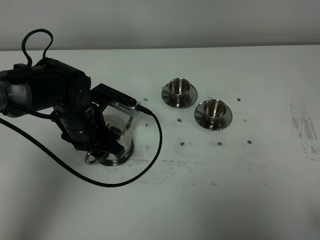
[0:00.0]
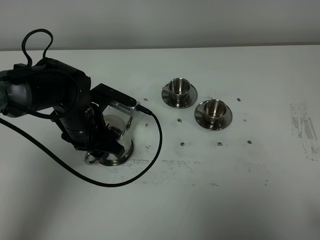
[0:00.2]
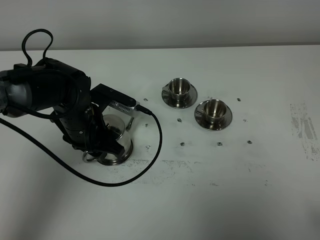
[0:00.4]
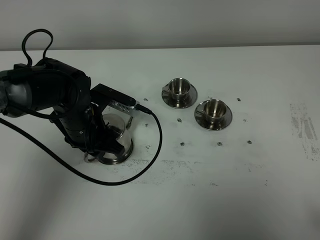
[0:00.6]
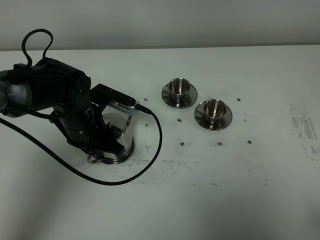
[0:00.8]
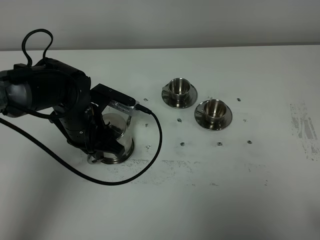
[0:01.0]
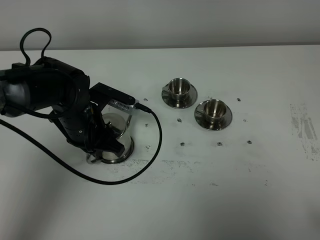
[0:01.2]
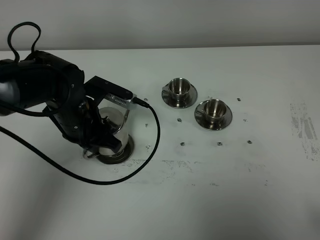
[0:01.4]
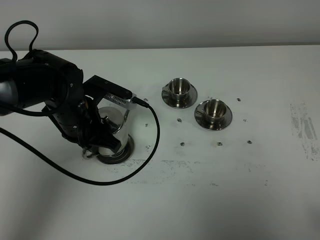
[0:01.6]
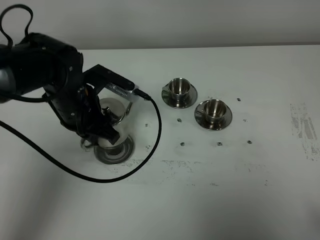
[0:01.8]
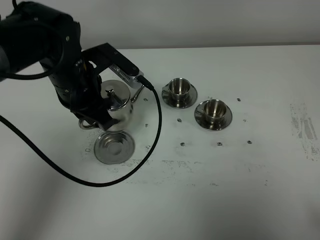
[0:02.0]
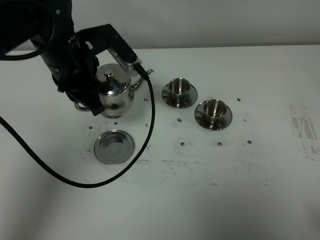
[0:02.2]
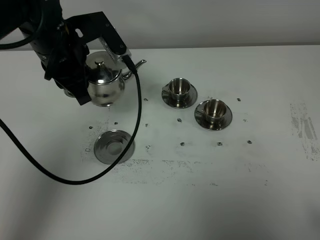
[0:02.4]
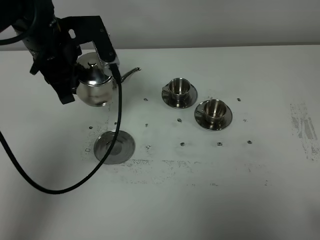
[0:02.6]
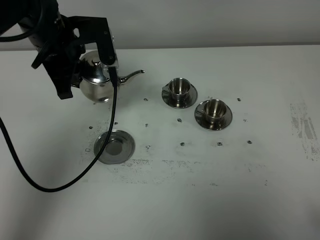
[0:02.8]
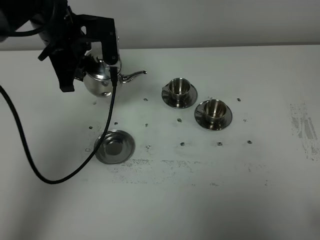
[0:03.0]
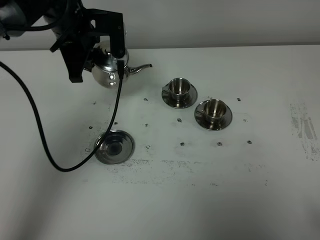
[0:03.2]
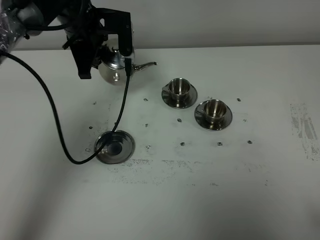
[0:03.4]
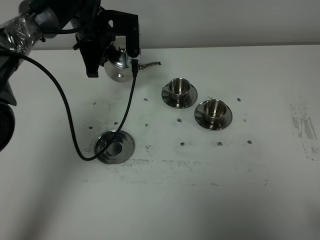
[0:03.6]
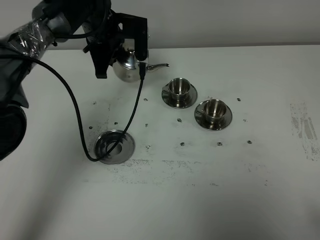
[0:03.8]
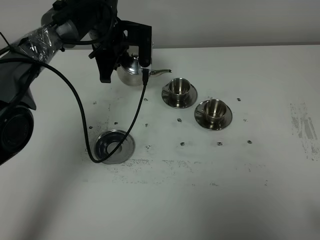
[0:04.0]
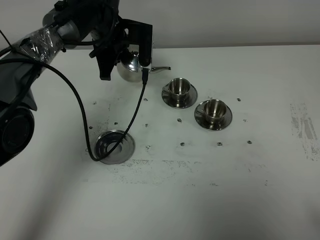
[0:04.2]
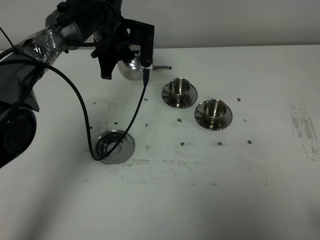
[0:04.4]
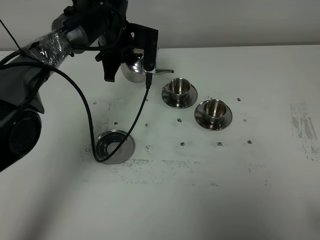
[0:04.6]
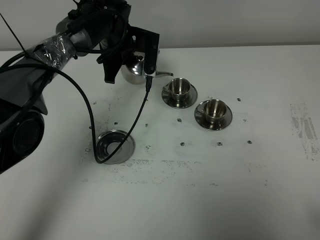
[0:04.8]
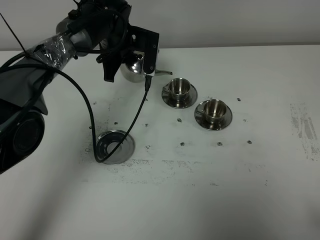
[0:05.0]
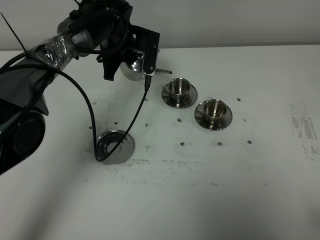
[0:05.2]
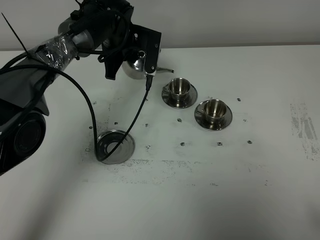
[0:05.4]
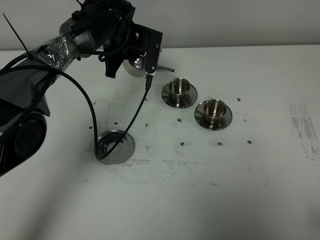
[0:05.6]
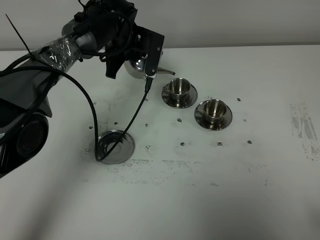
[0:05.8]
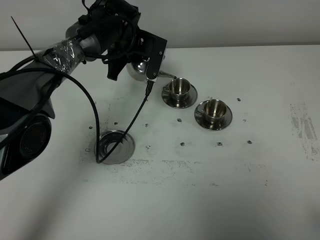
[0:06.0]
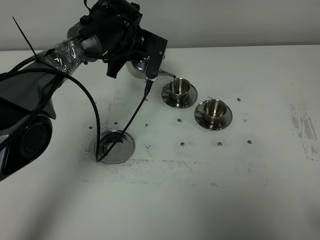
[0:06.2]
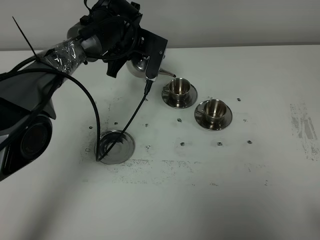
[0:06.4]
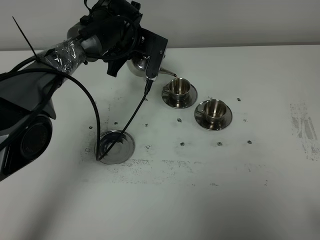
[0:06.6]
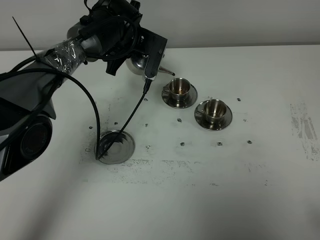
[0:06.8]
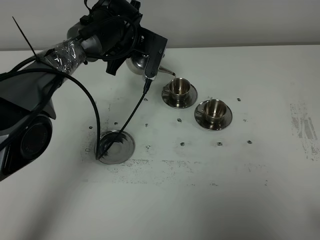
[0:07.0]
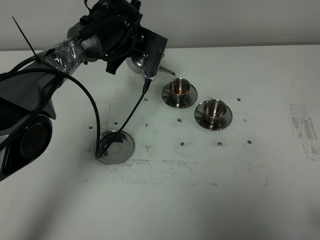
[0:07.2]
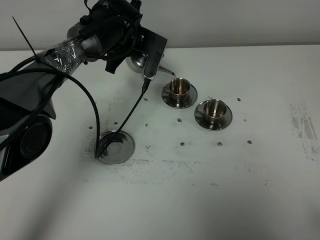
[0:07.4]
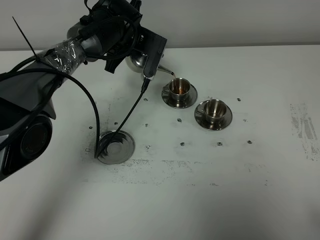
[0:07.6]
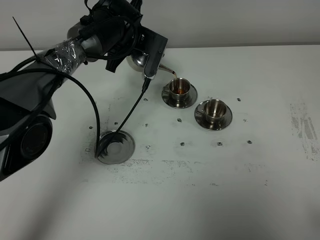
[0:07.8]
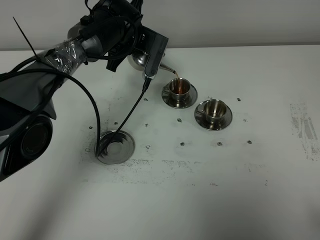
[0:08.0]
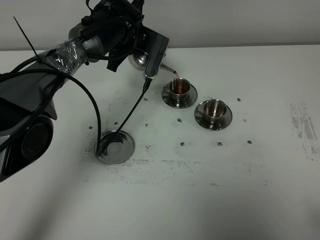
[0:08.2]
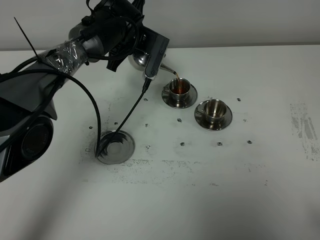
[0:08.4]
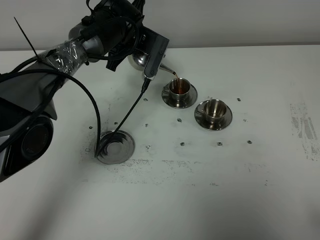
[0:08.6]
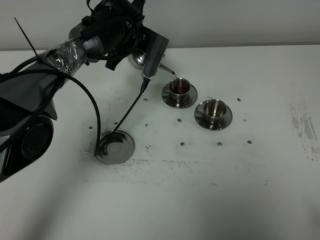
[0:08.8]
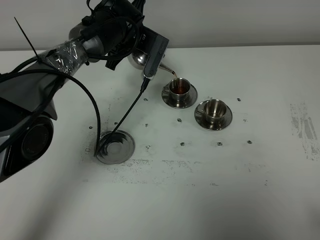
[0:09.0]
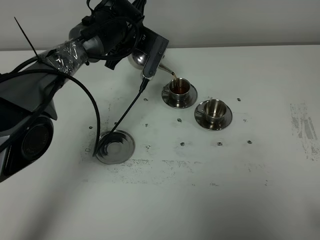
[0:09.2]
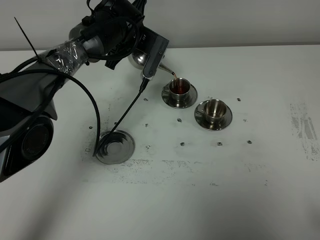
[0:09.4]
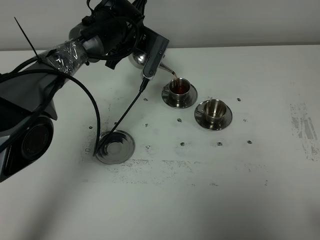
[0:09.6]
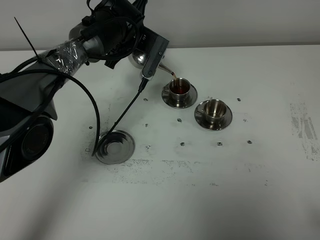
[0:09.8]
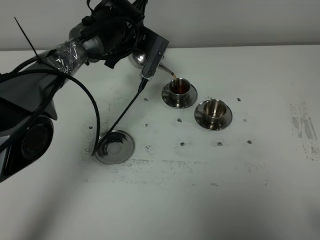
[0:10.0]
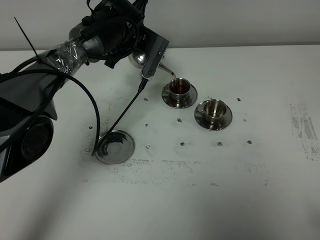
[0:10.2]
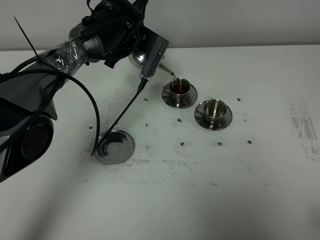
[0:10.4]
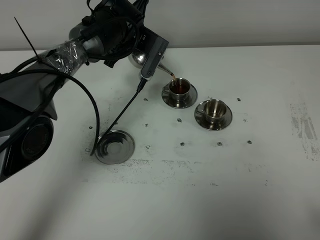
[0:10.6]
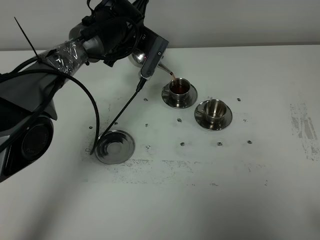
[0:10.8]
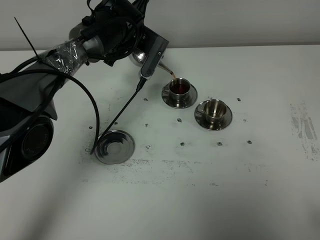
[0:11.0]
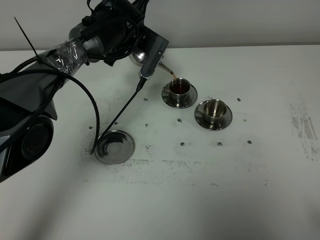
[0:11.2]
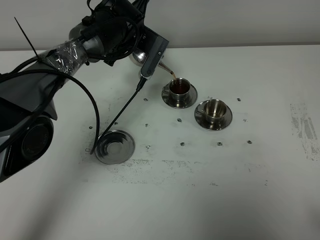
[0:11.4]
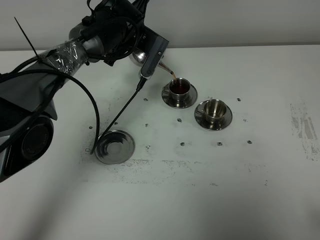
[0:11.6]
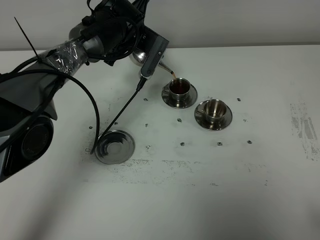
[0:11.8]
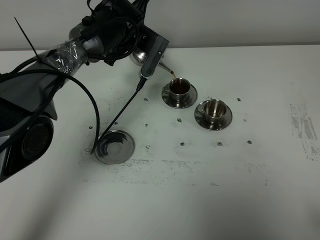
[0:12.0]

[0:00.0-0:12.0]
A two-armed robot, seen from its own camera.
Task of the whole recording: grasp the stainless steel teapot and pour the tea into the two stainless steel teacups one by one, put the stainless steel teapot back in its original place.
0:00.0 to 0:01.6: The left gripper closes its fingers.
0:01.6 to 0:03.0: The left gripper travels forward and upward by approximately 15 cm.
0:03.0 to 0:04.4: The left gripper goes some 10 cm forward, to the right and downward.
0:04.4 to 0:06.0: The grippers move only a little.
0:06.0 to 0:07.6: There are only small adjustments of the grippers.
0:07.6 to 0:09.0: Both grippers stay about where they are.
0:09.0 to 0:10.4: The two grippers keep their place.
0:10.4 to 0:12.0: The two grippers keep their place.

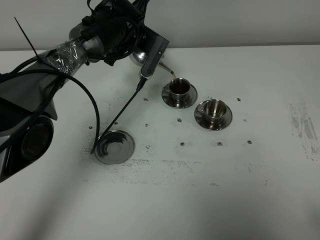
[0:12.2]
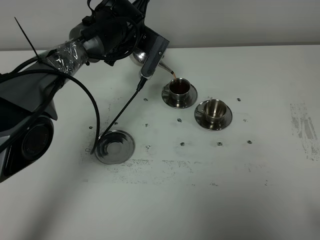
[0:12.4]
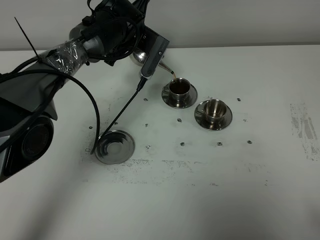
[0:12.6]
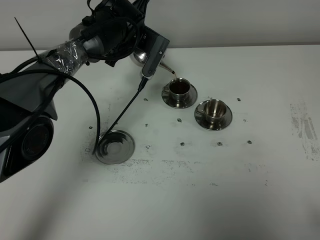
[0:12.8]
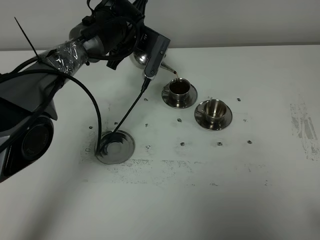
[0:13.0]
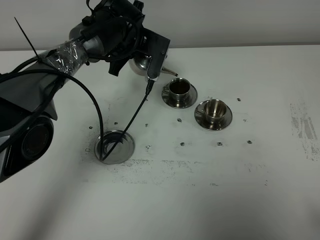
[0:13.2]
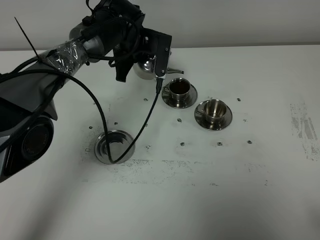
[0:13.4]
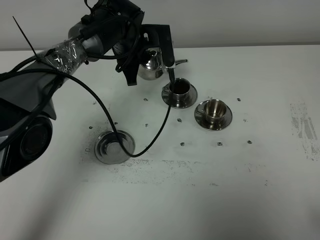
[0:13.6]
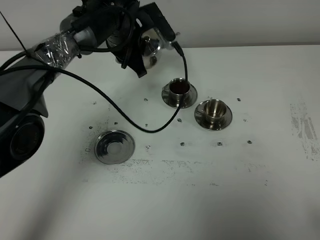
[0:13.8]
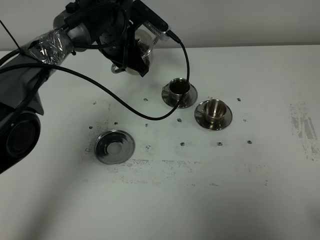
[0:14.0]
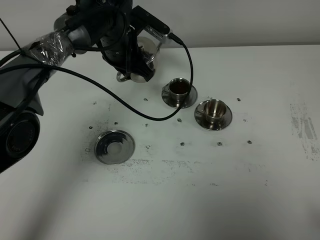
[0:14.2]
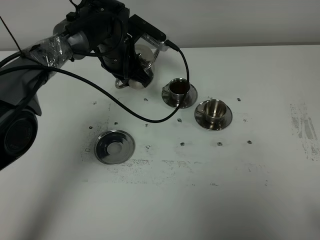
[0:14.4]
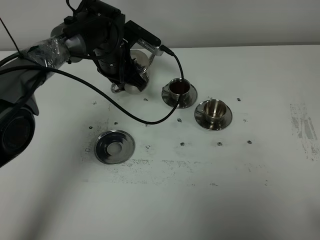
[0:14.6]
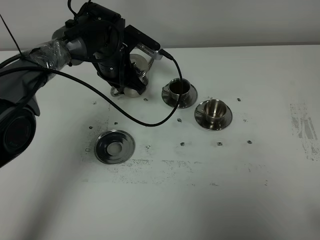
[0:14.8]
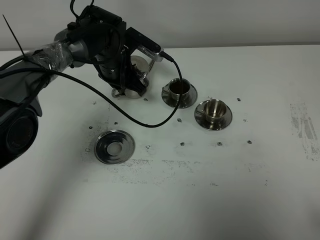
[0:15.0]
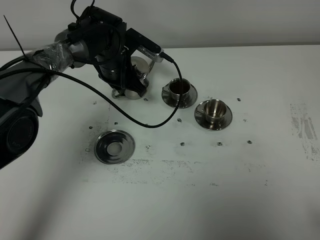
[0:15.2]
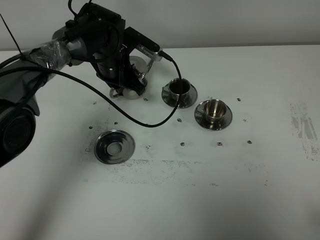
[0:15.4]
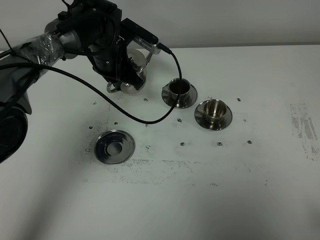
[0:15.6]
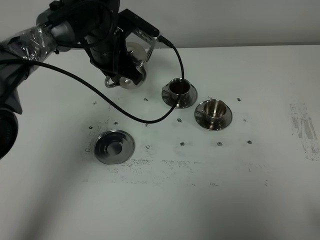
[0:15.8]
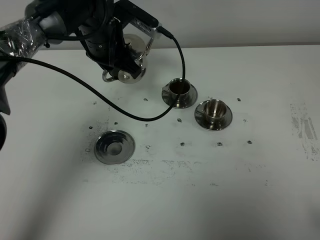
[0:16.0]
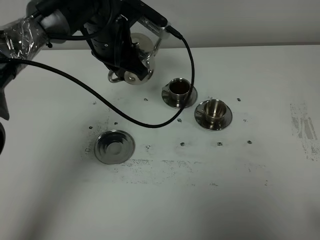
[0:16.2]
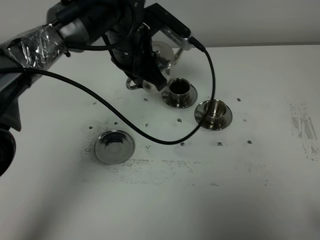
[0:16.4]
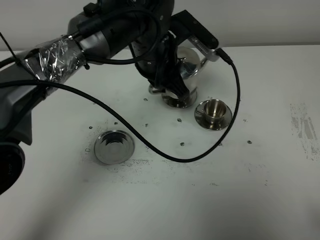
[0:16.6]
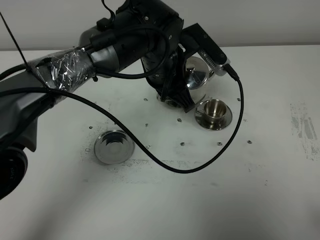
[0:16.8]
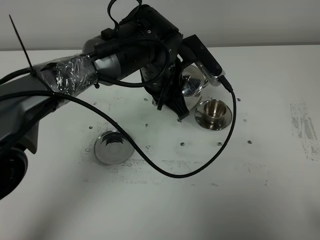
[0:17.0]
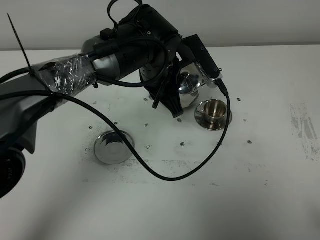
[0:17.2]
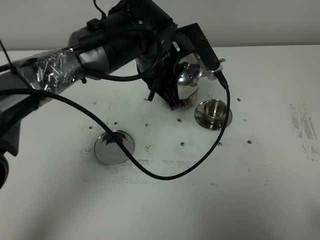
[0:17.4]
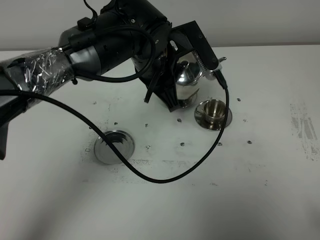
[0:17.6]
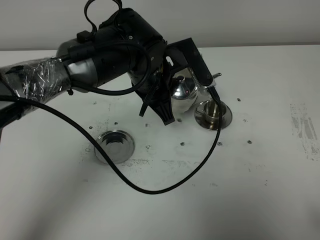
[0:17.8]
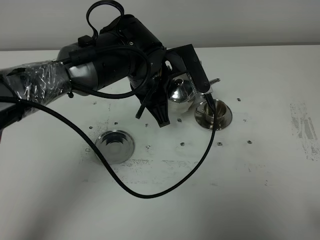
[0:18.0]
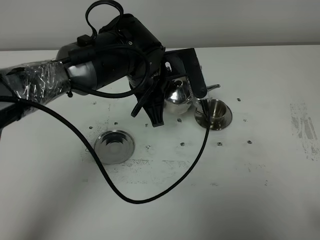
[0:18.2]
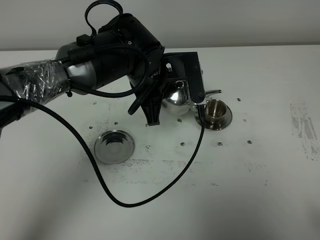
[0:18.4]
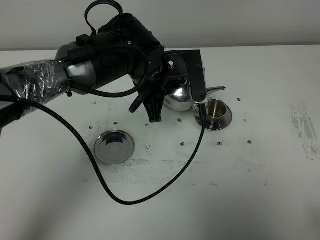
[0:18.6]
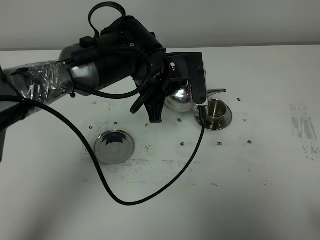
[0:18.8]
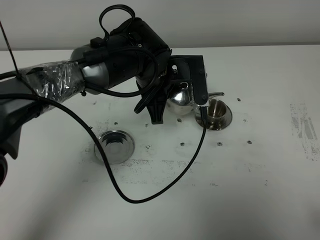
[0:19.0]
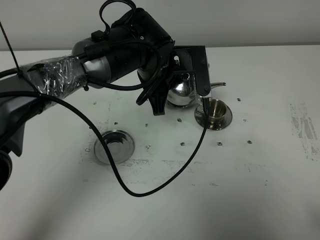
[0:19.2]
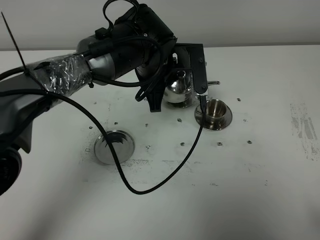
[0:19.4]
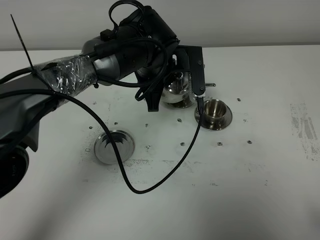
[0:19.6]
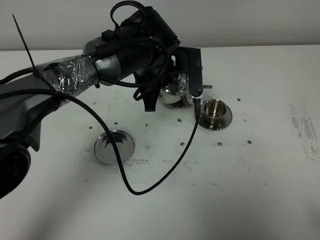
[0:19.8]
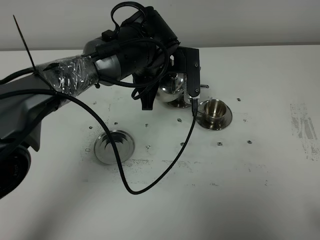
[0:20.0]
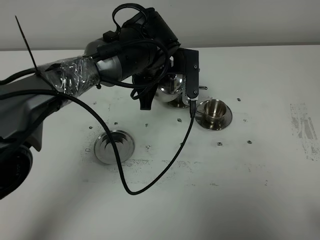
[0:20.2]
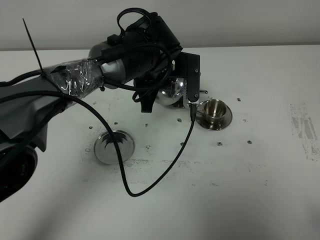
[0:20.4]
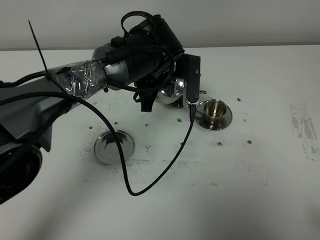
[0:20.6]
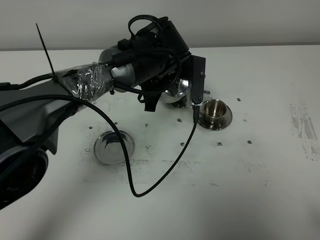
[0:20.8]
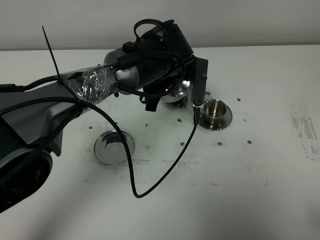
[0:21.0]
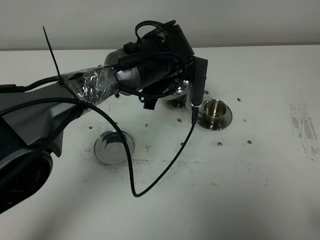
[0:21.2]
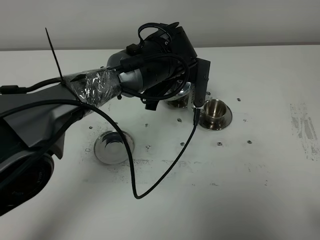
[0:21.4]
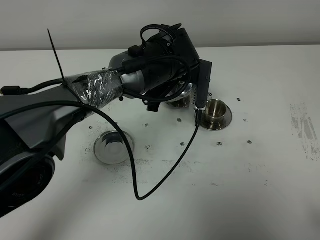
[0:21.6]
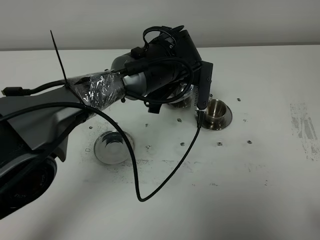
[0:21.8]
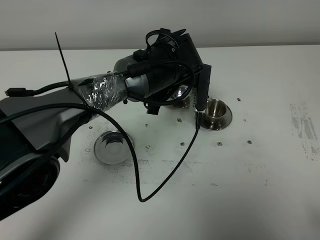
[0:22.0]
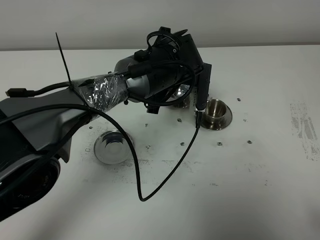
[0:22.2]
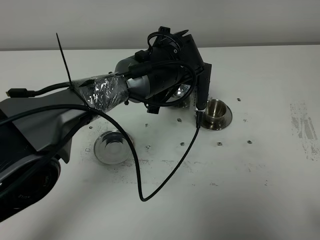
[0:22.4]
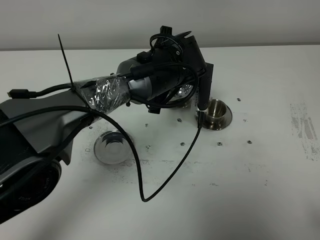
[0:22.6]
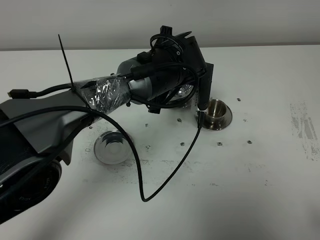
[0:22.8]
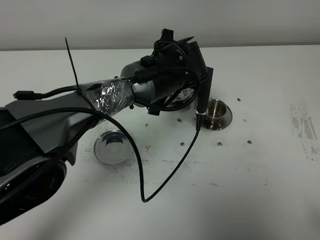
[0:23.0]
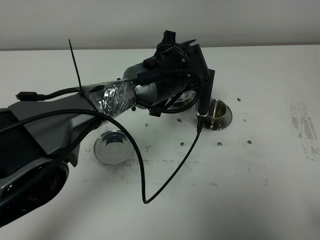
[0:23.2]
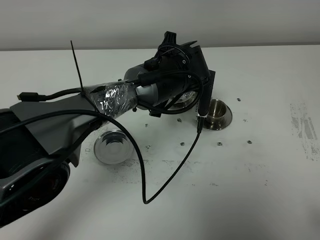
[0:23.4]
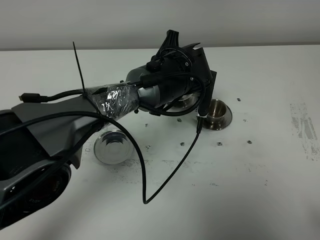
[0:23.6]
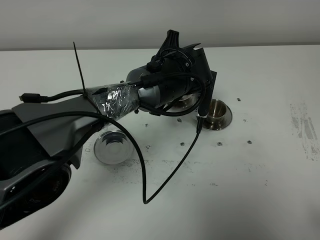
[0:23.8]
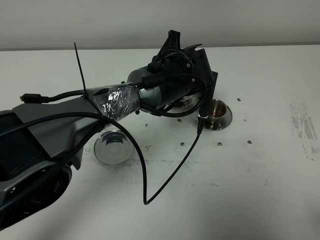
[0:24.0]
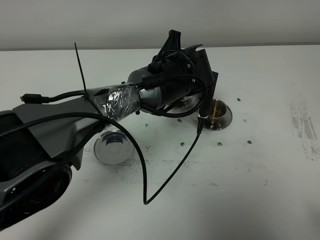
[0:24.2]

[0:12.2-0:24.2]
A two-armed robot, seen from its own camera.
Task of the whole recording: grasp the stainless steel teapot and pour the tea into the two stainless steel teacups one by one, put the stainless steel teapot back in its original place.
0:13.8 to 0:15.2: The left gripper moves downward, roughly 5 cm.
0:15.2 to 0:16.6: The left gripper is displaced upward, to the right and backward by about 15 cm.
0:18.2 to 0:19.8: The grippers stay close to where they were, moving slightly.
0:19.8 to 0:22.6: The grippers stay close to where they were, moving slightly.
0:22.6 to 0:24.2: There are only small adjustments of the grippers.
